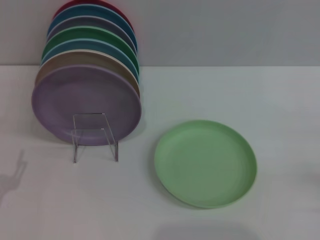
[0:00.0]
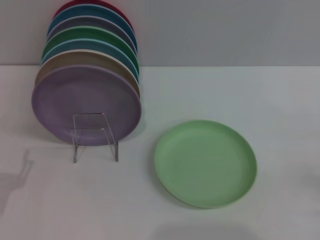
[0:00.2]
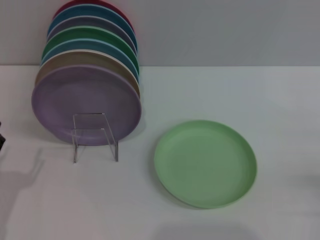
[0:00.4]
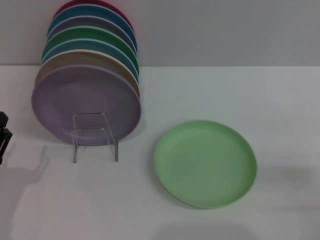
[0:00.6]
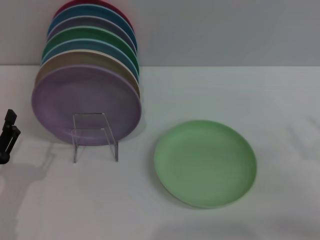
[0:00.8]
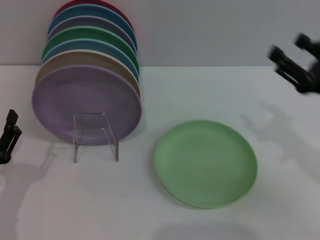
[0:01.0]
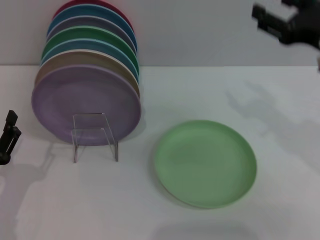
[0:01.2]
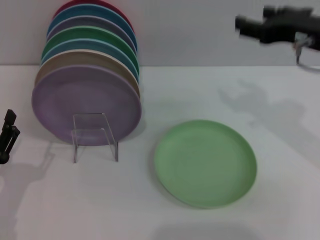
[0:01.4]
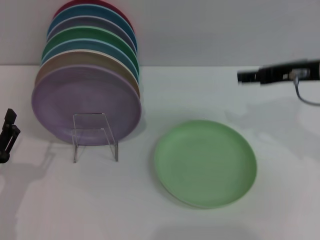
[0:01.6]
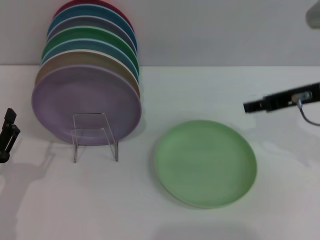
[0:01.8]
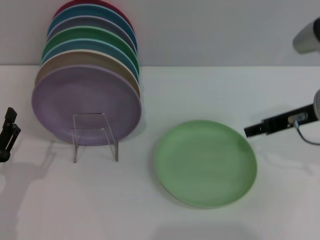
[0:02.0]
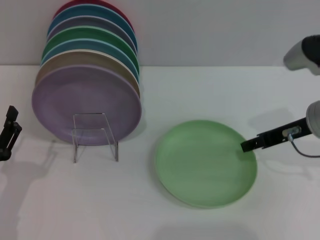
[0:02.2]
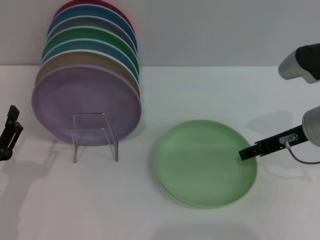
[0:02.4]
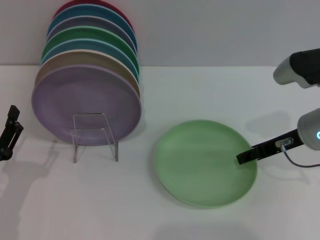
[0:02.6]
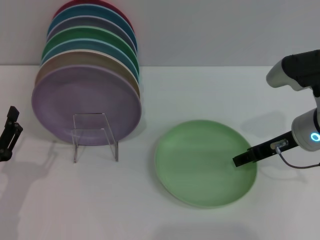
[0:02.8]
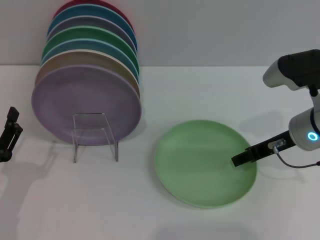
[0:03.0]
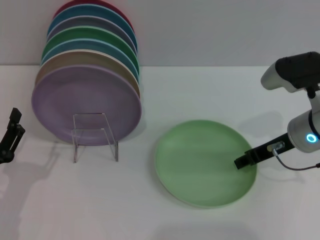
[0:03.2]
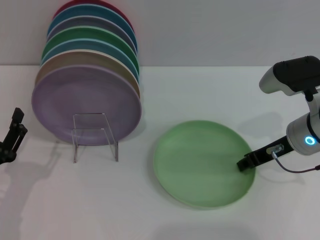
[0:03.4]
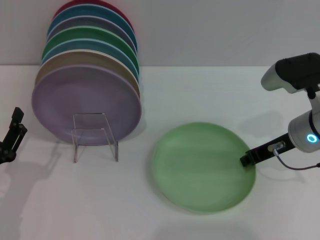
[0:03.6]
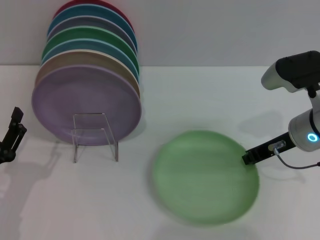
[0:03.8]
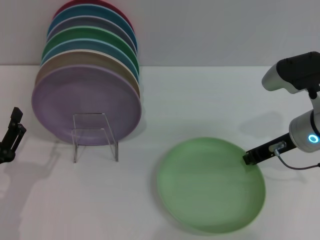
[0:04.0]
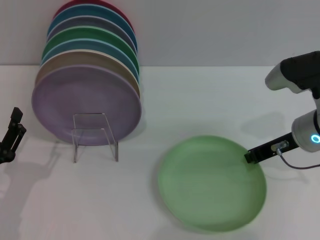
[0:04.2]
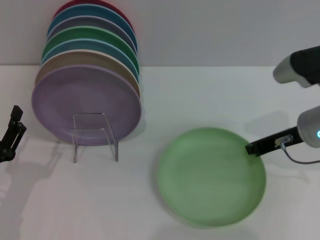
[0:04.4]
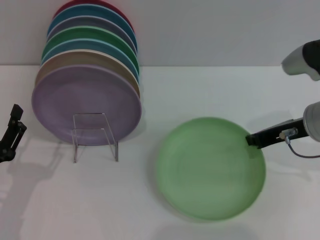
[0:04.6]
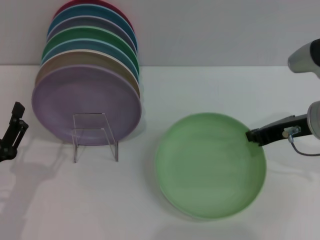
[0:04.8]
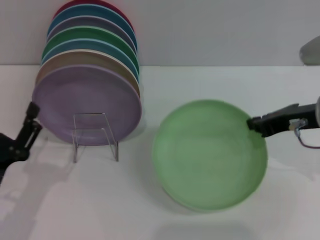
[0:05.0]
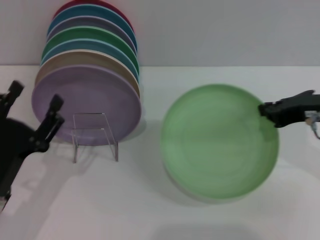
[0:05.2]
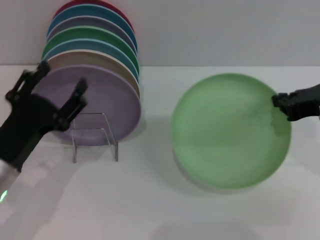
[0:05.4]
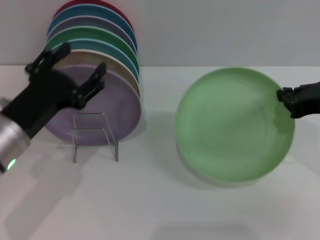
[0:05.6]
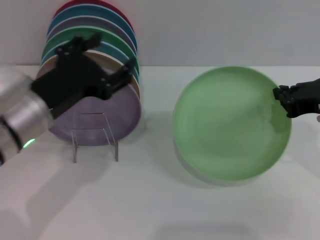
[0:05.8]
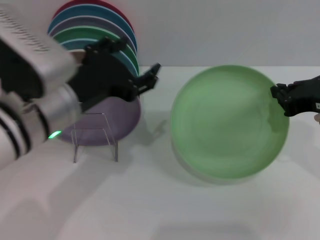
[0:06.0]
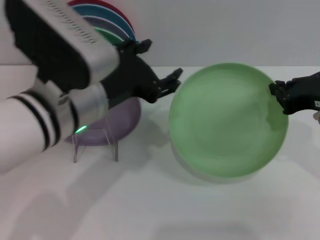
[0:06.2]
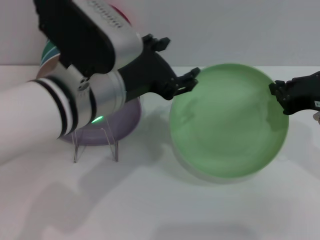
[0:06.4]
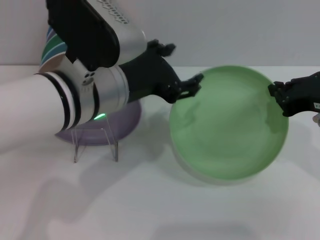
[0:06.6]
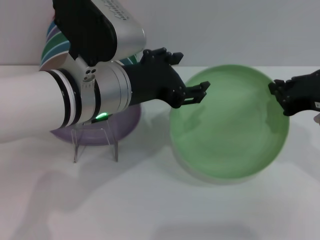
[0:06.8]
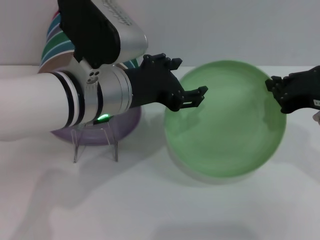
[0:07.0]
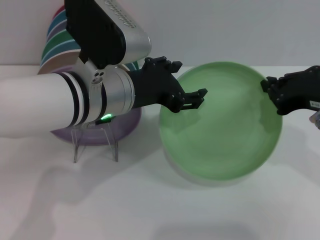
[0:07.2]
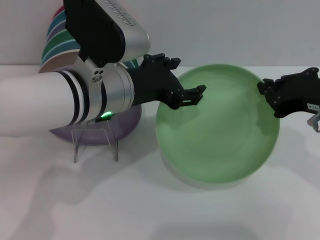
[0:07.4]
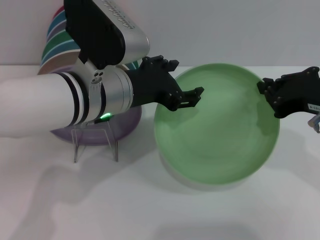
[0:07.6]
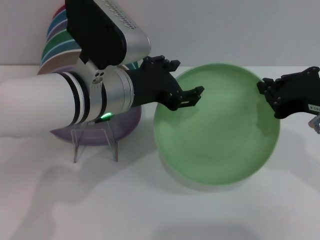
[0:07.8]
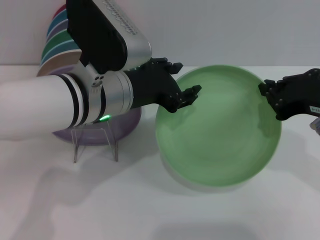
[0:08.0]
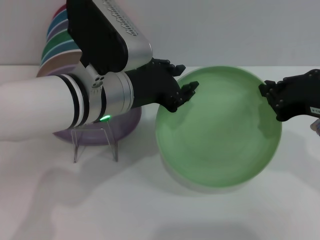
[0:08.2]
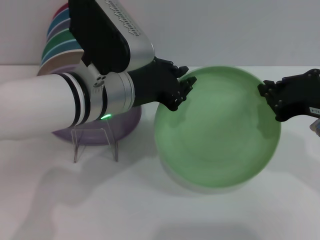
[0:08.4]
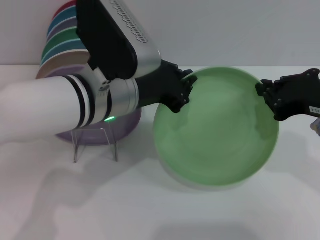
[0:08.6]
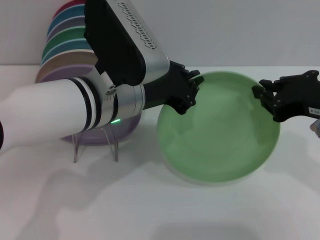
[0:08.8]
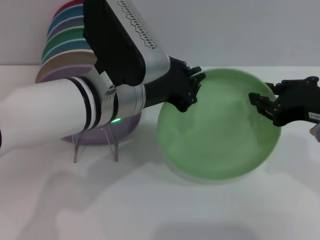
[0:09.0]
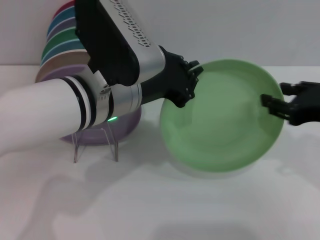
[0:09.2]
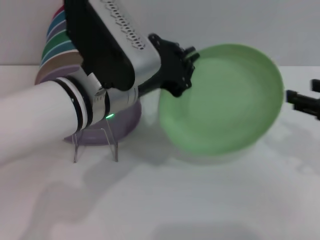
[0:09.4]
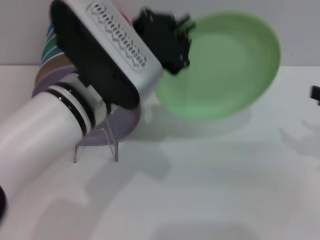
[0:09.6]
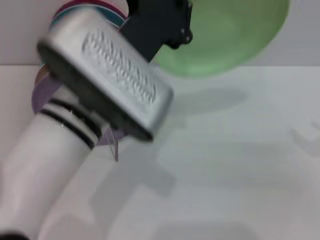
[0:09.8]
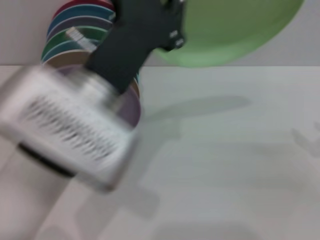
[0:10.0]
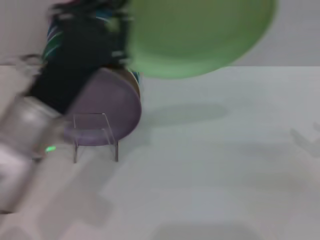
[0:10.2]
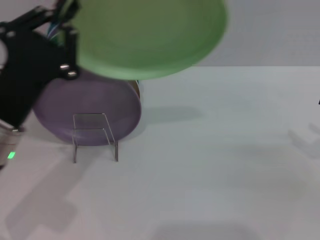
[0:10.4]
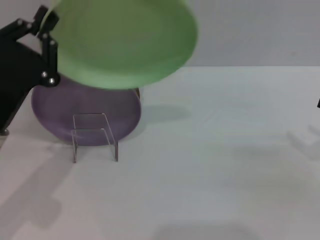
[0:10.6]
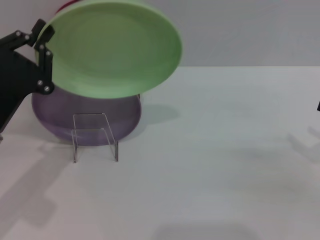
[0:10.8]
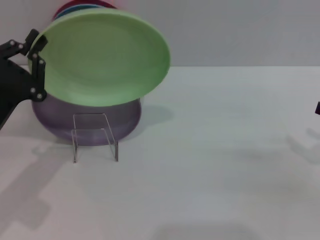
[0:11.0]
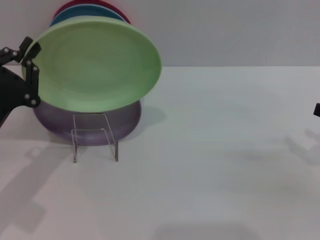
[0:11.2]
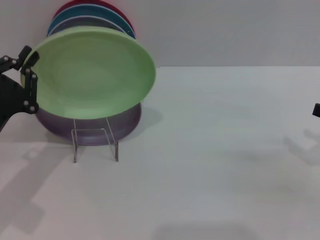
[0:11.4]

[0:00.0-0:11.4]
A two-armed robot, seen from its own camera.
Task of the whole recording: Grip the plate with one hand, pass it to the other, then set it on the shelf.
Step, 0:00.0 to 0:05.2: Pick up the plate with the right gripper.
Step, 0:05.4 to 0:09.4: Pass the plate from the right gripper to the left gripper.
0:00.0 to 0:01.4: The right gripper is displaced upward, forward and to the left by about 30 cm.
0:01.4 to 0:02.8: The right gripper is displaced downward by about 10 cm.
0:02.8 to 0:04.2: The right gripper closes up.
0:04.2 to 0:05.6: The right gripper travels upward and backward by approximately 10 cm; the left gripper is displaced upward, to the right and forward by some 15 cm.
0:05.6 to 0:07.2: The left gripper travels to the right, upward and forward by about 15 cm.
0:07.2 to 0:08.6: The left gripper closes up.
0:08.6 to 0:10.0: The left gripper goes some 5 cm backward, while the right gripper heads to the right and downward, covering approximately 15 cm, and opens up.
0:10.0 to 0:11.4: The left gripper is displaced to the left and downward by some 20 cm.

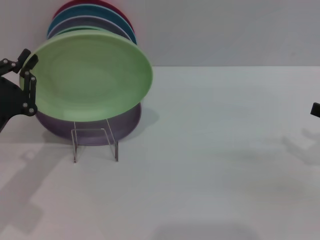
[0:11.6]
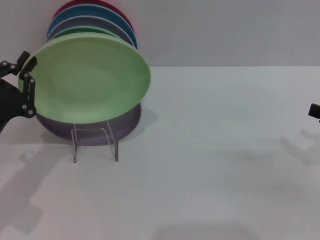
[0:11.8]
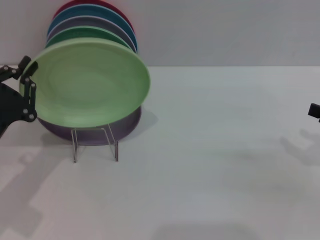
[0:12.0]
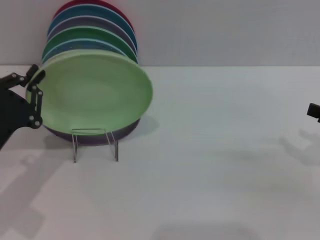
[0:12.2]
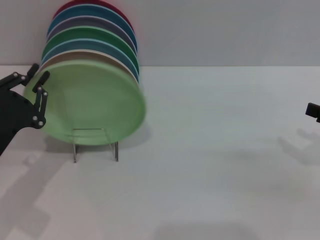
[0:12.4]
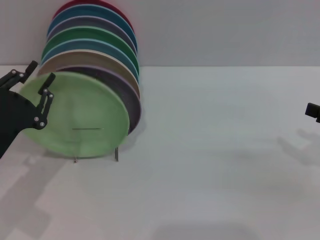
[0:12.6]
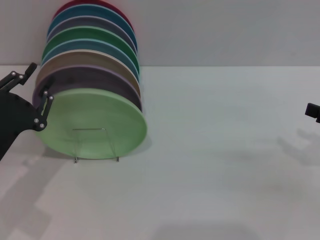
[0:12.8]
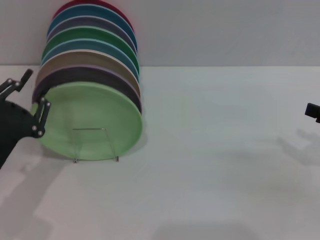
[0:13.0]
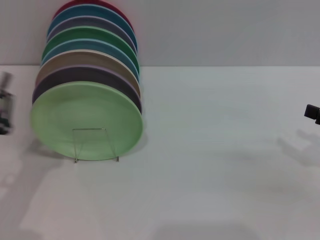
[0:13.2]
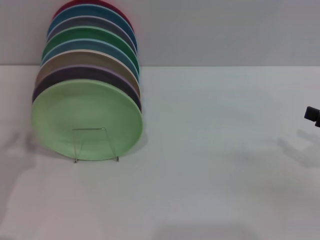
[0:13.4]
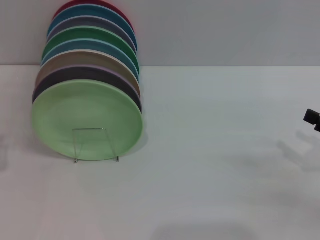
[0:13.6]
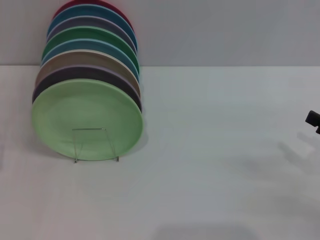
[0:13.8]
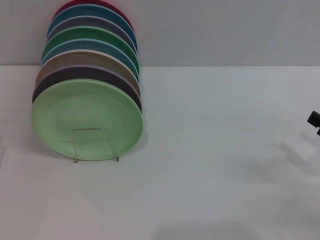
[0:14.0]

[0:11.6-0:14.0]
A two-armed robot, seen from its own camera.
Task of the whole recording: Grip the plate with one hand, pass it to the other, then set it on the shelf.
0:11.6 to 0:12.8: There are only small adjustments of the grippers.
0:12.8 to 0:14.0: The right gripper heads downward, covering roughly 5 cm. Meanwhile the left gripper moves to the left and backward, roughly 10 cm.
